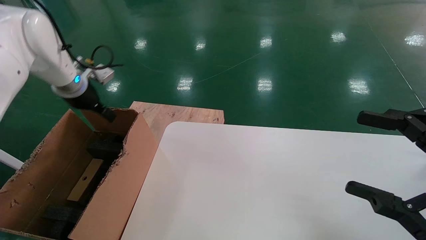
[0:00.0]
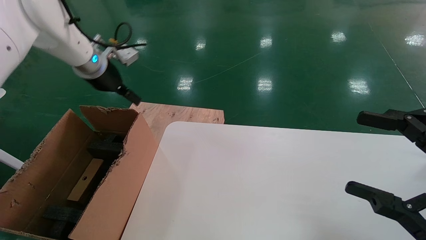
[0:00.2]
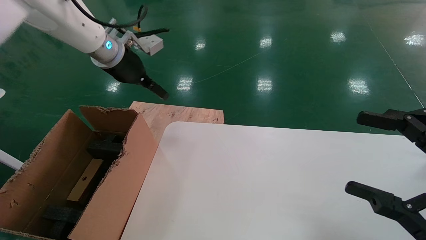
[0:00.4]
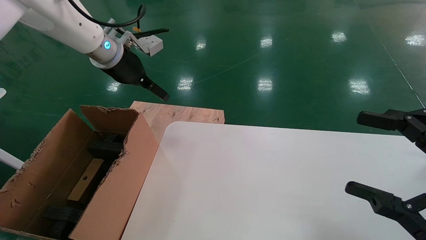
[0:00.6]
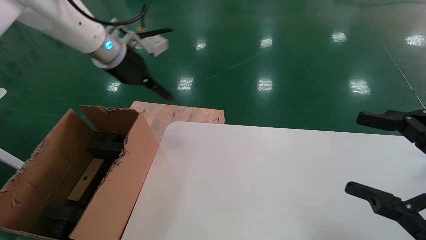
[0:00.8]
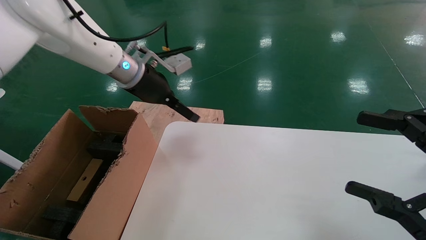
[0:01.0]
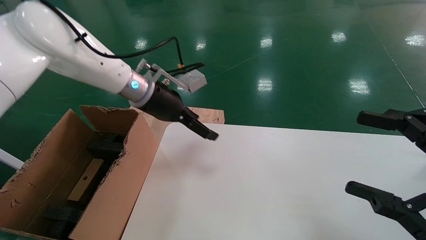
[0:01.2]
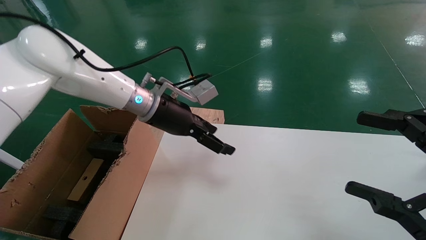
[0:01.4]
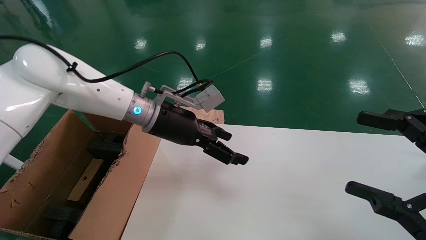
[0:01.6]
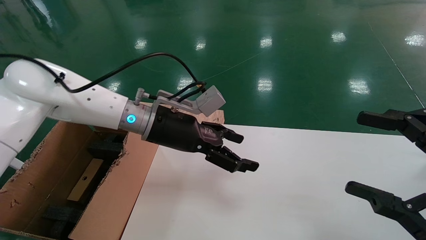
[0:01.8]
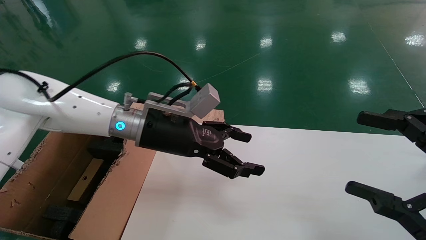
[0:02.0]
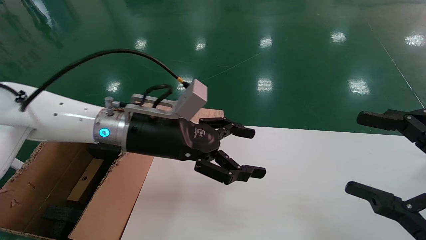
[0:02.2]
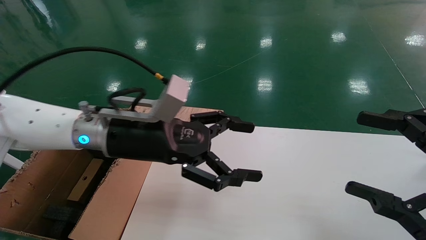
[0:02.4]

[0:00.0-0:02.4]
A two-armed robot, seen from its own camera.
Task of the whole recording: place the small box on the table into the large box on the left.
0:00.0 to 0:01.2: The left gripper goes roughly 20 cm to the right.
0:01.2 to 0:02.4: The left gripper moves backward, approximately 10 cm.
